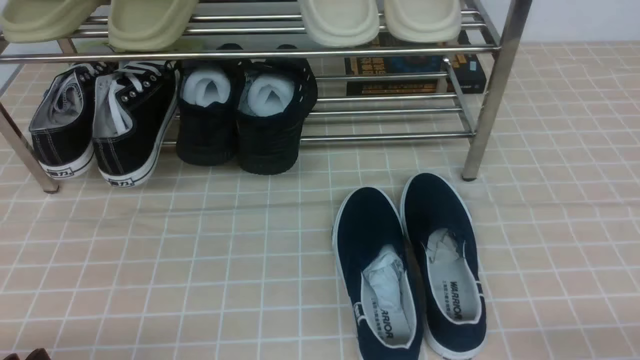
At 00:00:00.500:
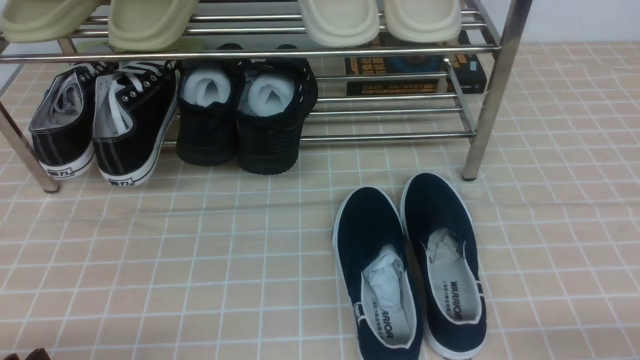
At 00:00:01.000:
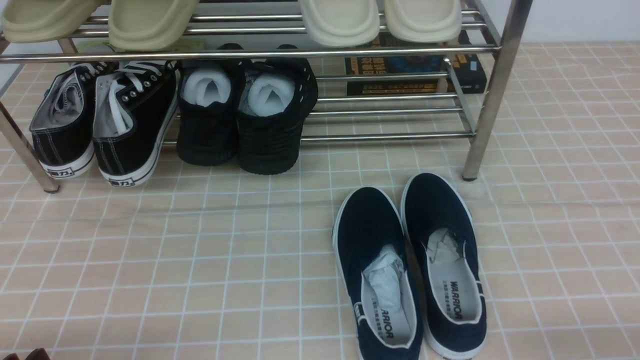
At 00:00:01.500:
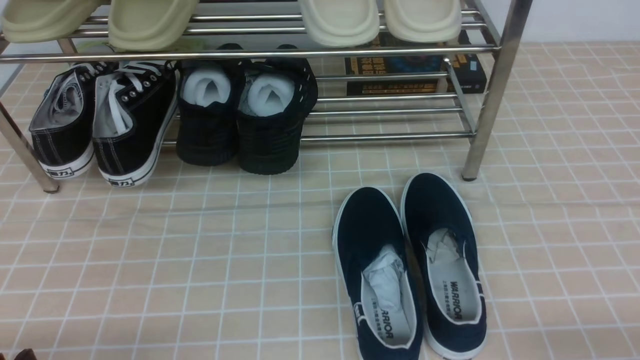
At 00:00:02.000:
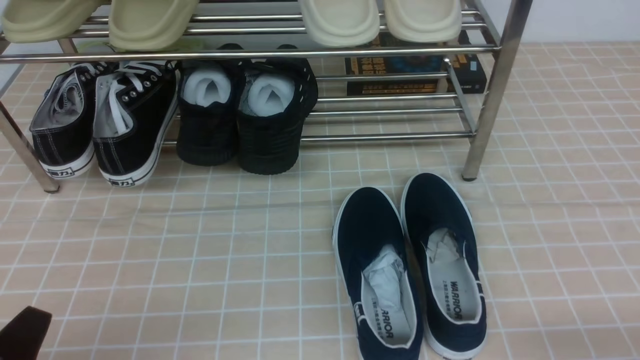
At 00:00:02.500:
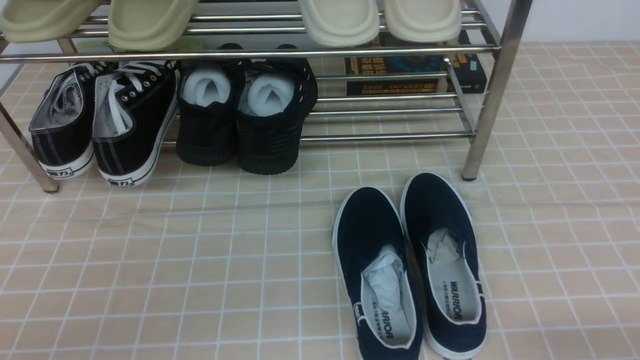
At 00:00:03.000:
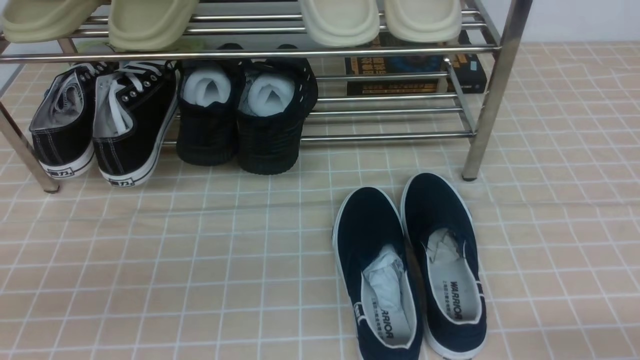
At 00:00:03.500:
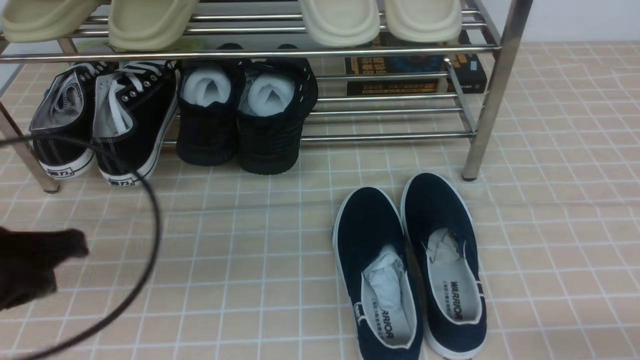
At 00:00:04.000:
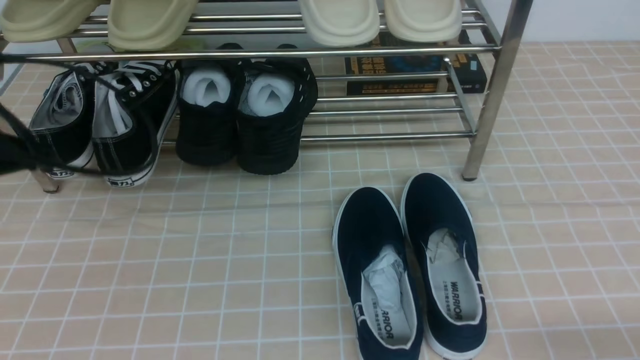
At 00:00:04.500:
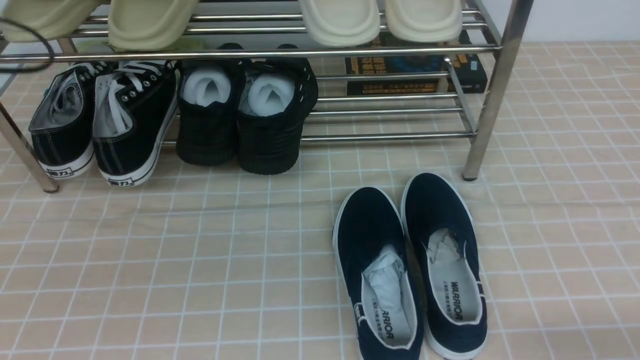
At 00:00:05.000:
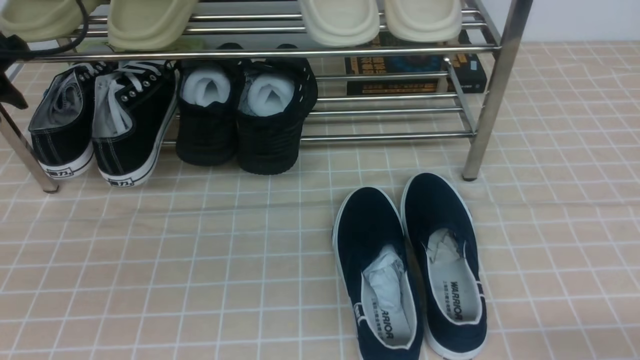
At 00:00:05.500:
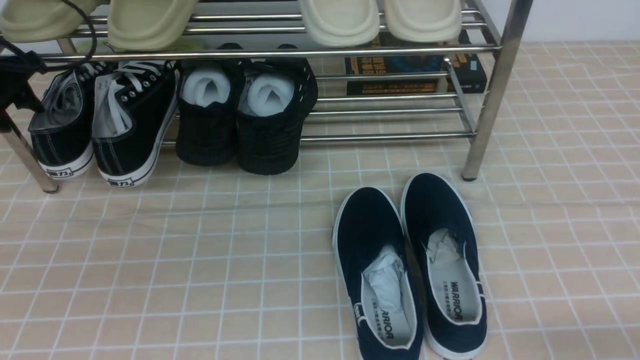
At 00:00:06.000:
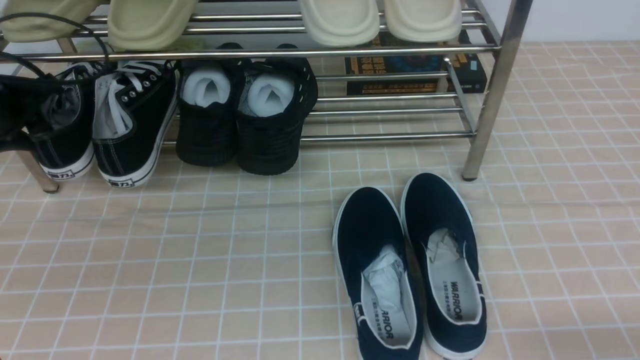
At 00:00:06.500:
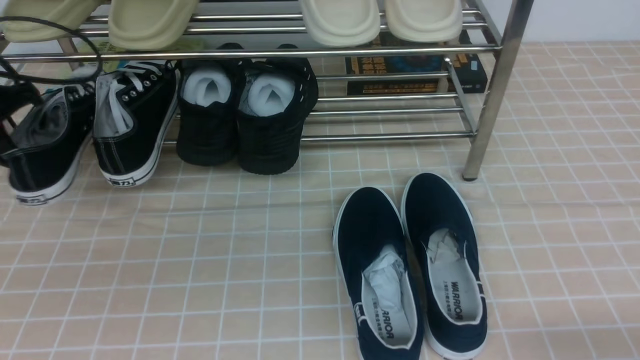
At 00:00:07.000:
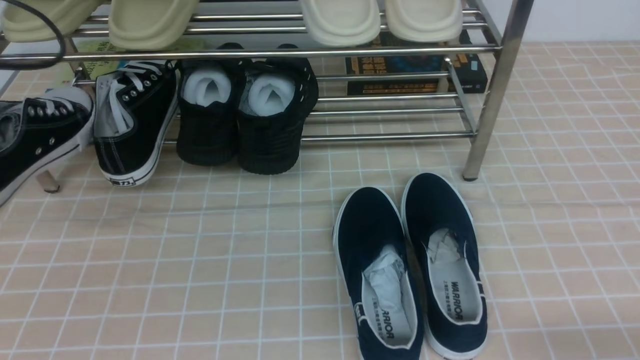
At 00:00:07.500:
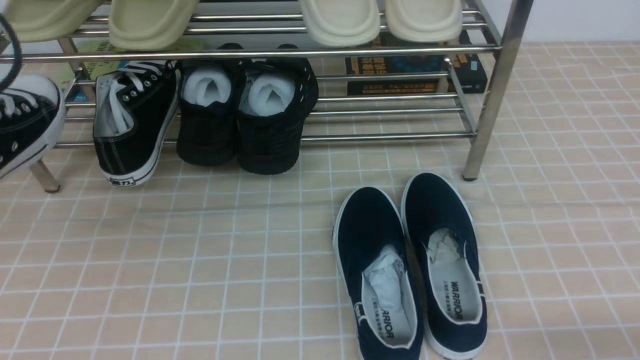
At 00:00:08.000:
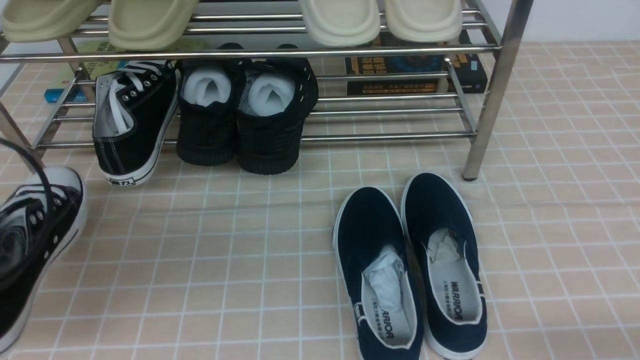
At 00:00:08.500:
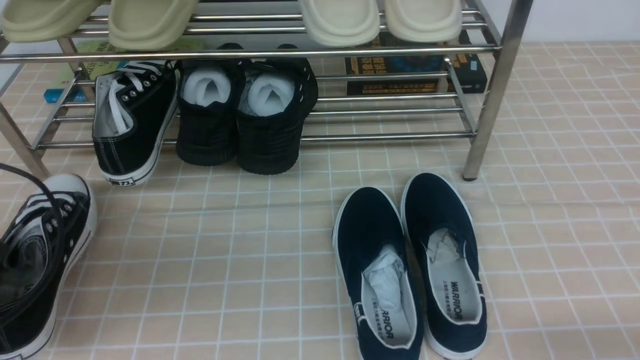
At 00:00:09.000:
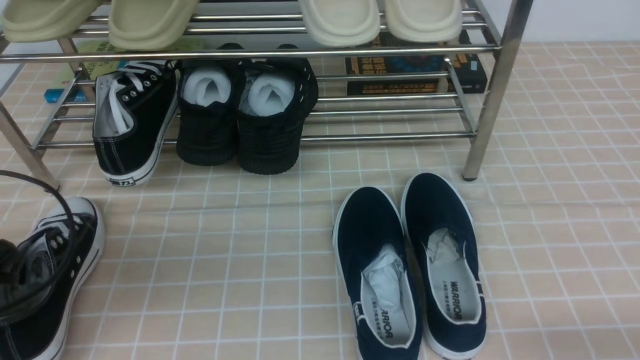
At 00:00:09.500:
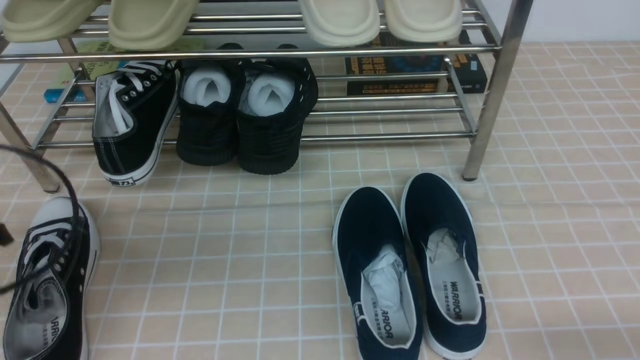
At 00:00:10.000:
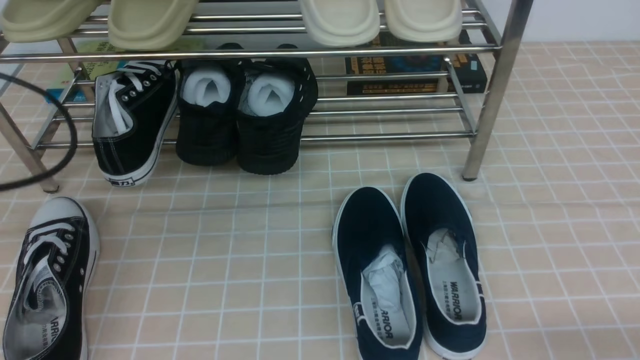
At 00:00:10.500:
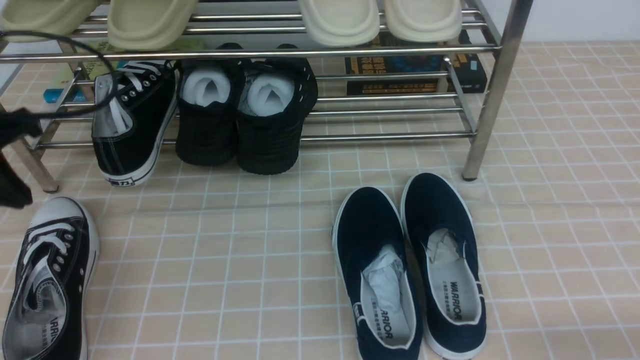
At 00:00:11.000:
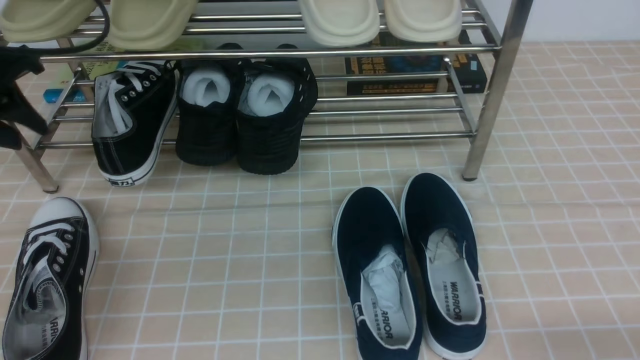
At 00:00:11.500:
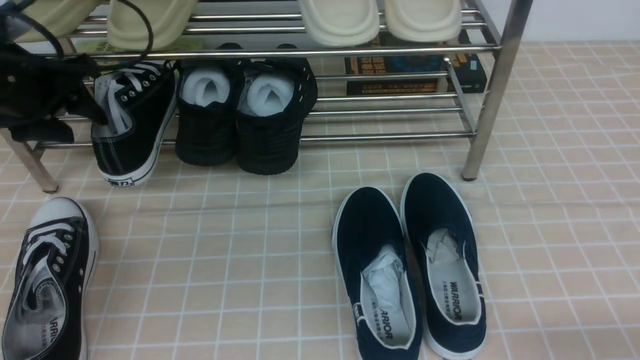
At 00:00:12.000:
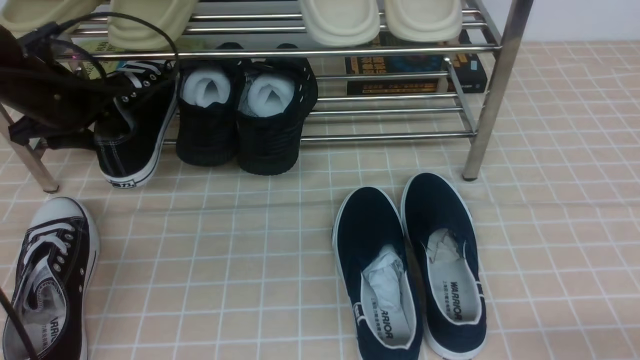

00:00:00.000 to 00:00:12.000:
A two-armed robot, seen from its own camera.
Step, 00:00:00.000 to 00:00:06.000: use the left arm to clamp a shoe on the left side of the shoe rack.
Step, 00:00:06.500 to 00:00:09.500: Use your left arm to remove the clamped shoe from the shoe rack and put it down.
00:00:02.000 to 00:00:04.000: The left gripper moves forward and upward, about 25 cm, and closes up.
00:00:04.000 to 00:00:06.000: The left gripper heads forward, to the left and downward, covering roughly 15 cm, and opens up.
00:00:06.000 to 00:00:08.000: The left gripper shifts some 25 cm backward, and closes up.
00:00:08.000 to 00:00:10.000: The left gripper shifts by some 5 cm, and opens, then closes once more.
00:00:10.000 to 00:00:12.000: The left gripper is displaced forward by some 20 cm, and opens its fingers.

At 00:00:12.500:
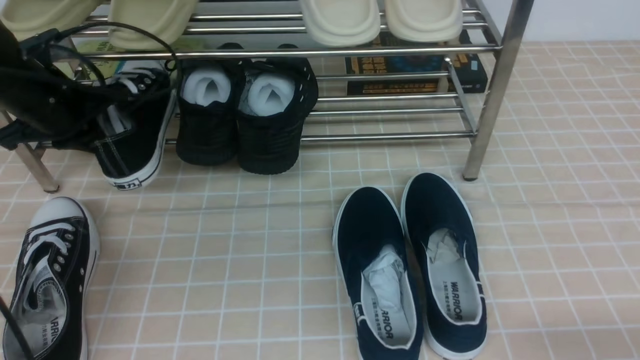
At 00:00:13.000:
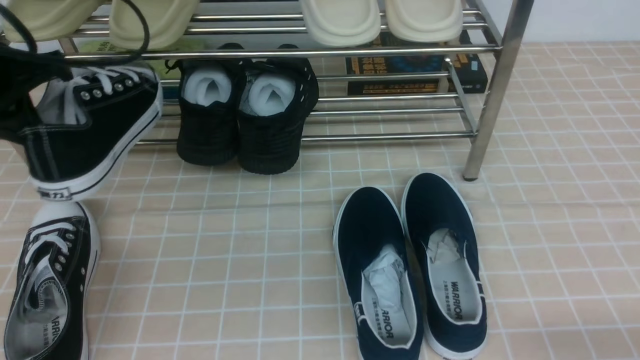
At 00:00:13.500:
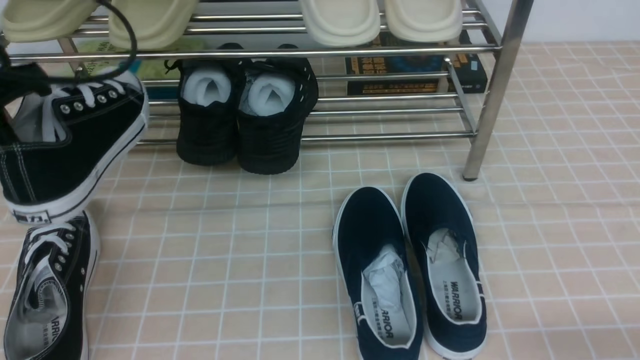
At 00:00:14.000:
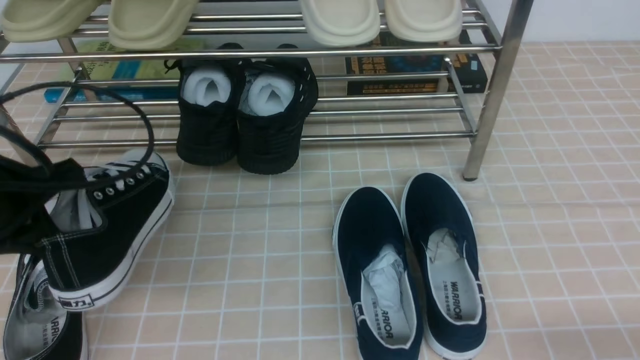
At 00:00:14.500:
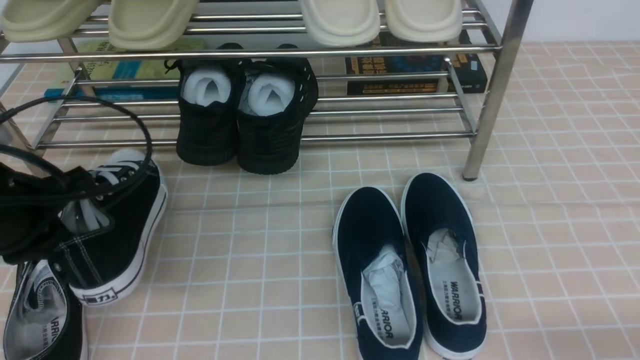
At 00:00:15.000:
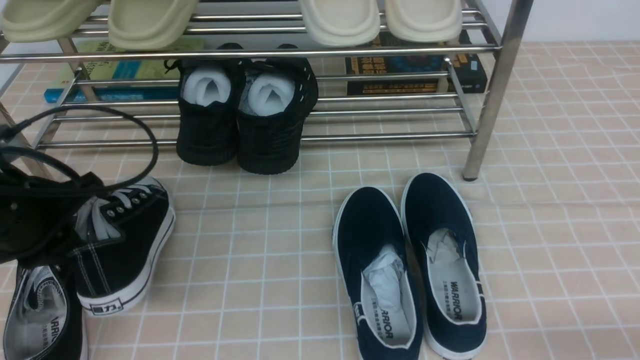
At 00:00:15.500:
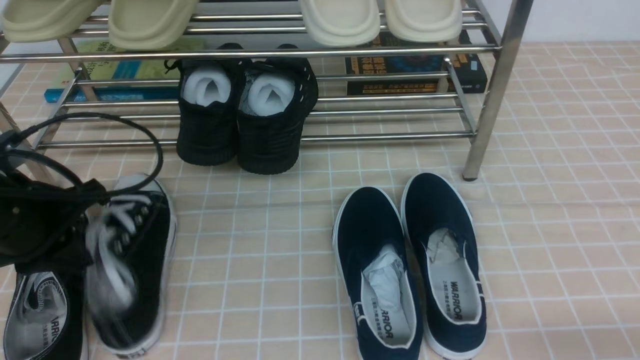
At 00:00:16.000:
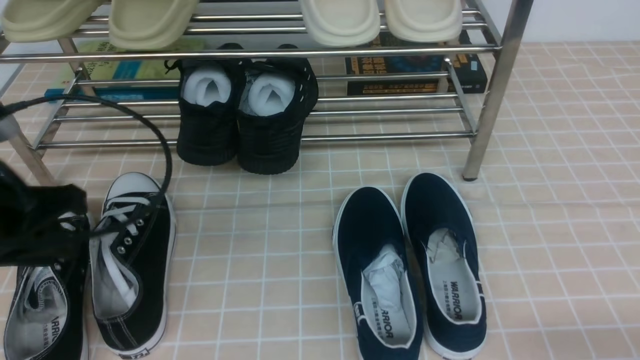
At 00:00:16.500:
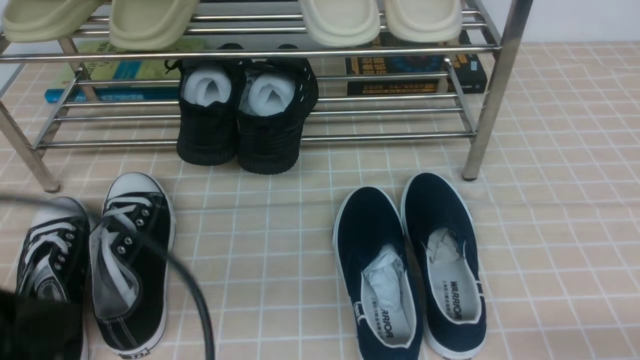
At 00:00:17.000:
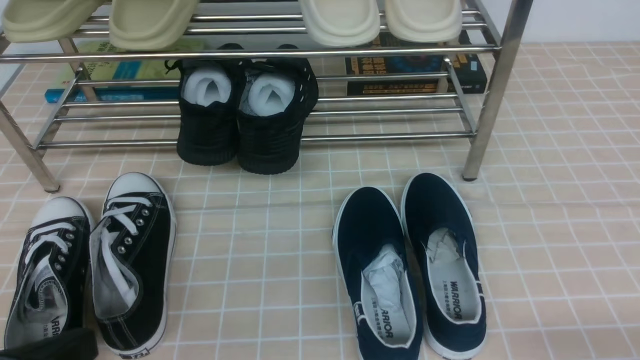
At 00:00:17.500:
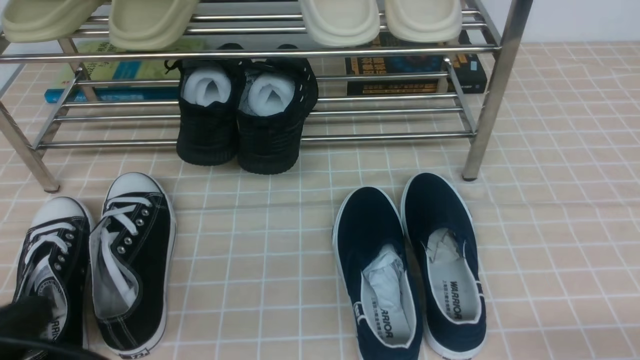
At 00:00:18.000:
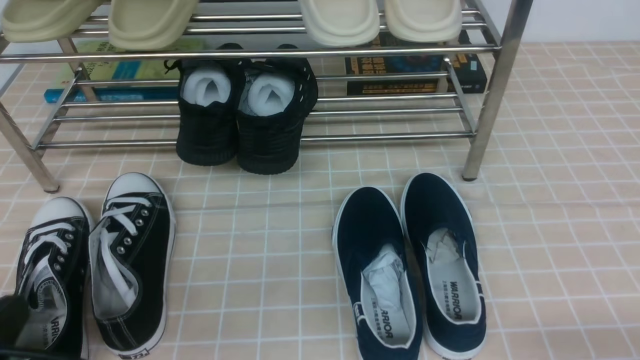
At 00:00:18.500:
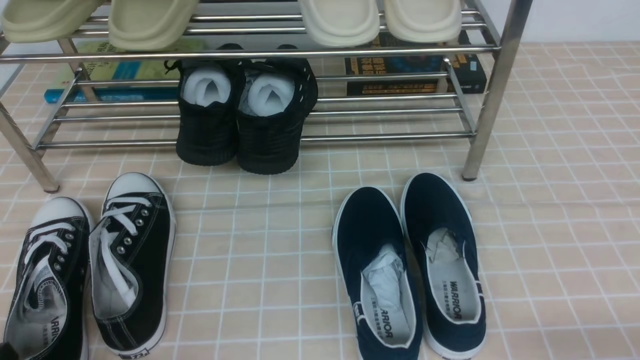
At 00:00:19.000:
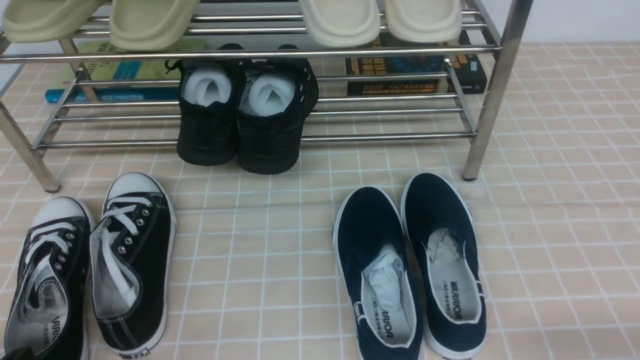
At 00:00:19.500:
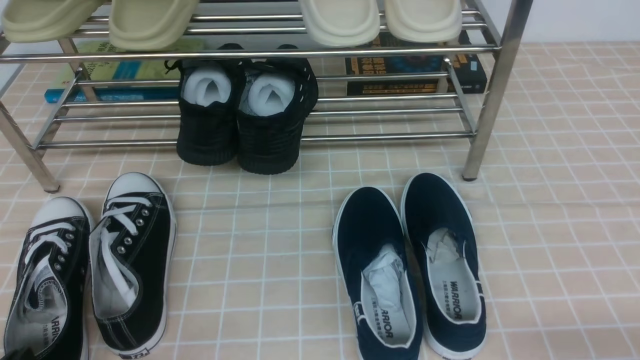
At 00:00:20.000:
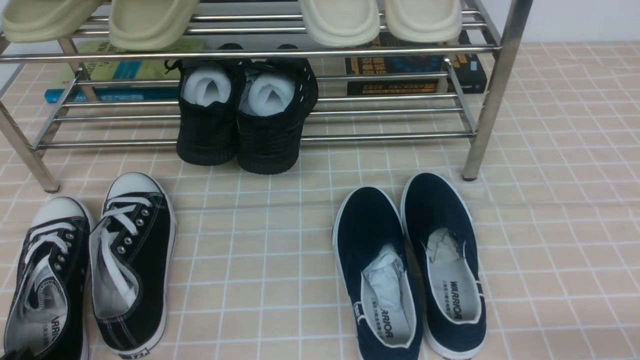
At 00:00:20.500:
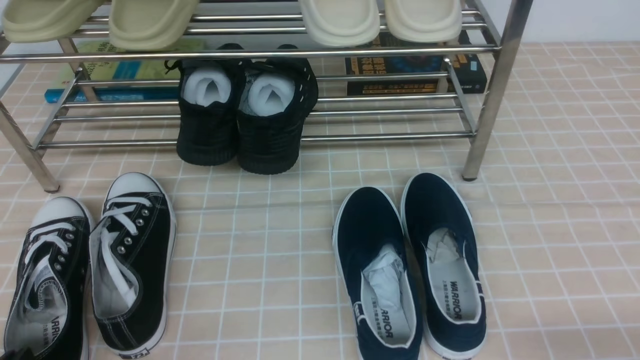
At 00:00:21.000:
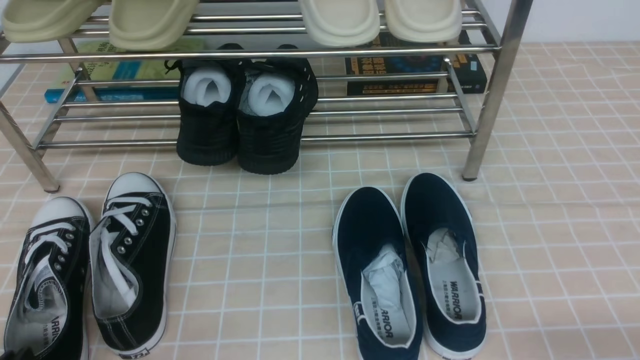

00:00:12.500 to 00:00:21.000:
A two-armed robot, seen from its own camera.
Step, 00:00:12.500 to 00:00:15.500: Use your left arm to remove the clamped shoe from the shoe rack and put it down.
00:00:12.500 to 00:00:14.500: The left gripper is displaced backward by some 15 cm.
00:00:14.500 to 00:00:16.500: The left gripper heads backward, covering roughly 15 cm, and opens, then closes once more.
00:00:16.500 to 00:00:19.000: The left gripper travels downward by about 15 cm.
00:00:19.000 to 00:00:21.000: Both grippers stay about where they are.
